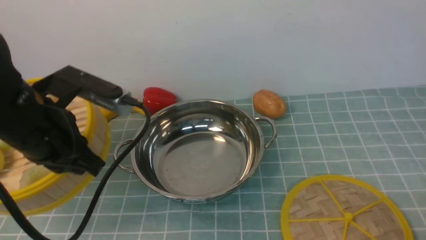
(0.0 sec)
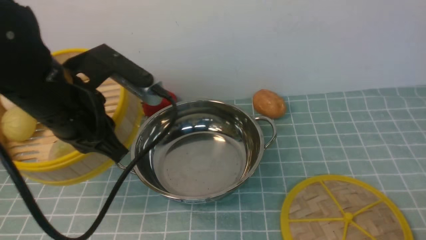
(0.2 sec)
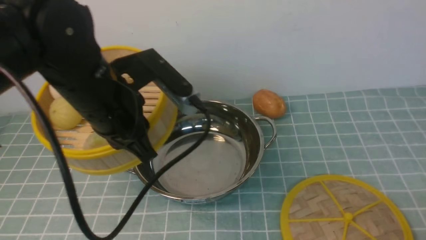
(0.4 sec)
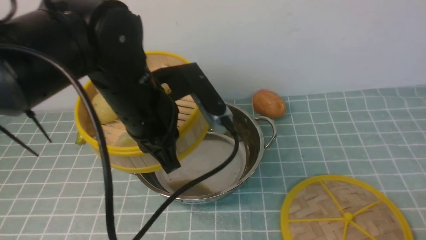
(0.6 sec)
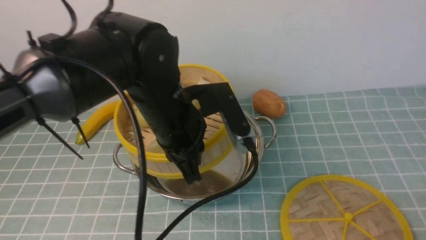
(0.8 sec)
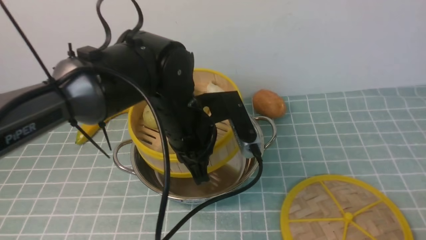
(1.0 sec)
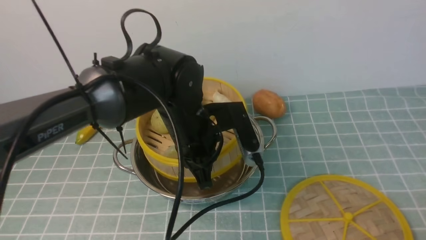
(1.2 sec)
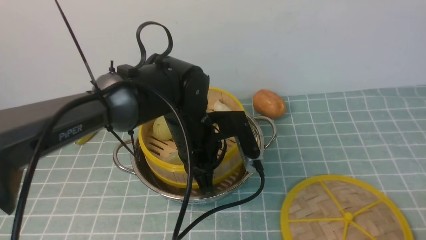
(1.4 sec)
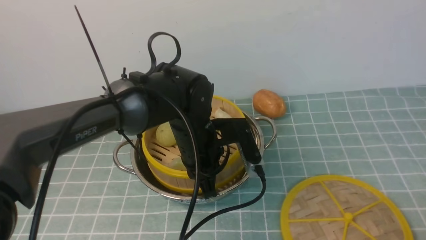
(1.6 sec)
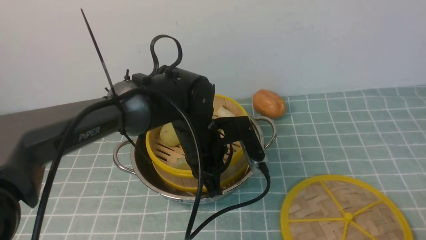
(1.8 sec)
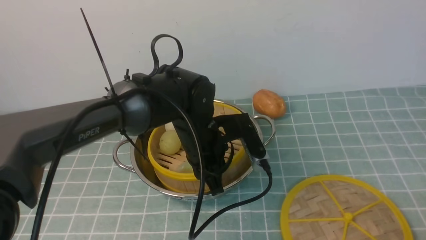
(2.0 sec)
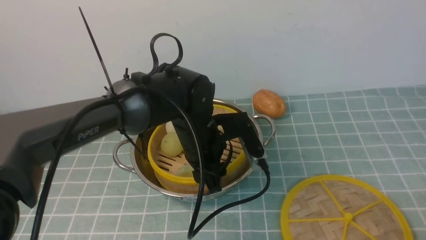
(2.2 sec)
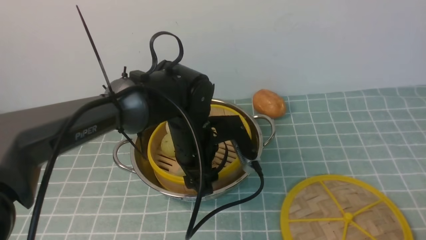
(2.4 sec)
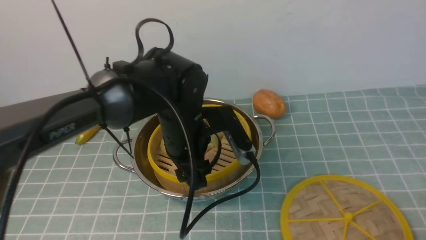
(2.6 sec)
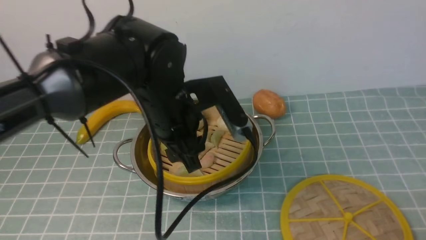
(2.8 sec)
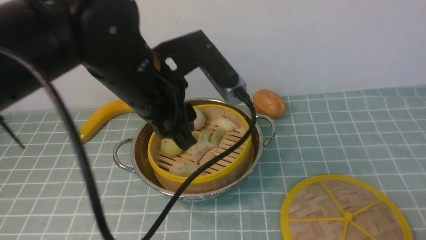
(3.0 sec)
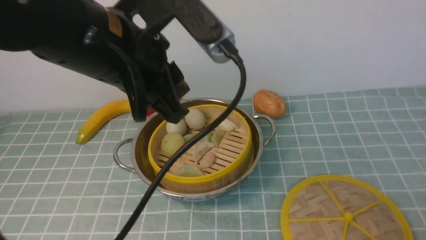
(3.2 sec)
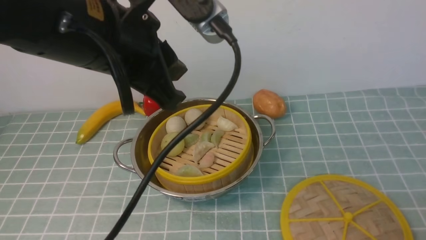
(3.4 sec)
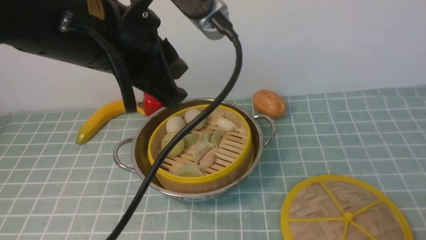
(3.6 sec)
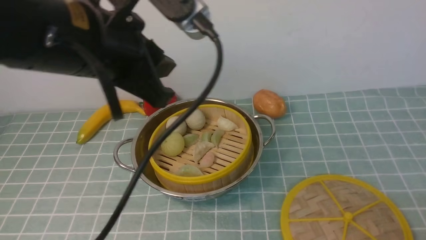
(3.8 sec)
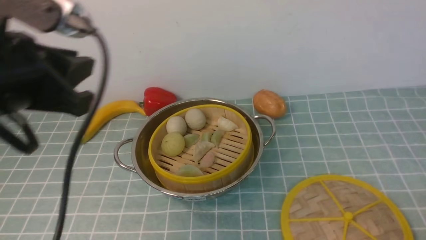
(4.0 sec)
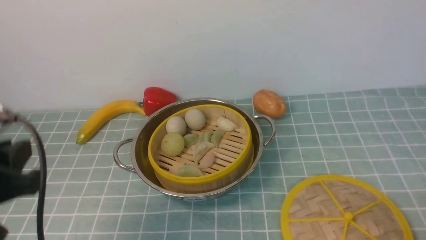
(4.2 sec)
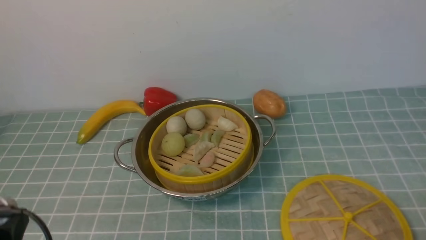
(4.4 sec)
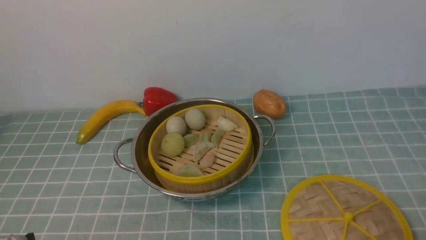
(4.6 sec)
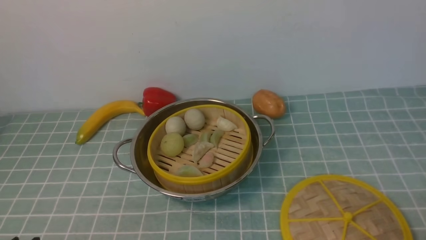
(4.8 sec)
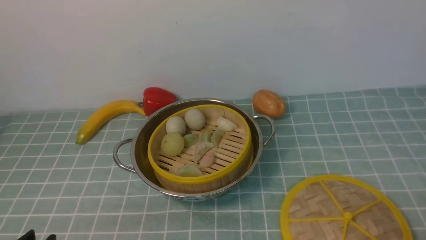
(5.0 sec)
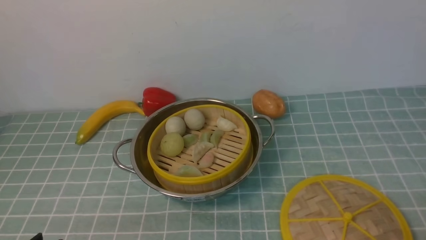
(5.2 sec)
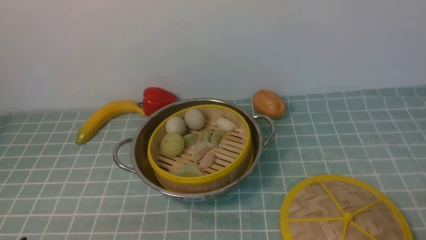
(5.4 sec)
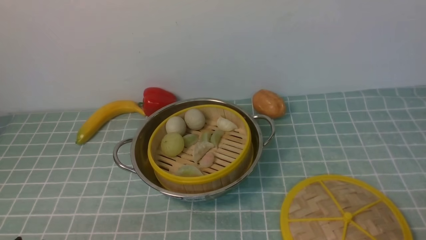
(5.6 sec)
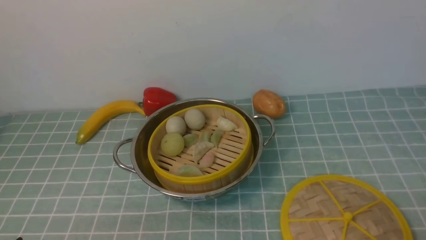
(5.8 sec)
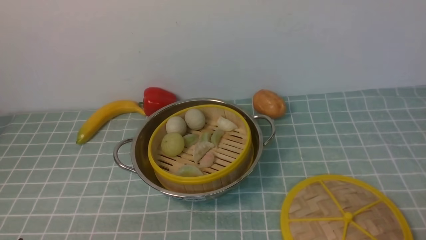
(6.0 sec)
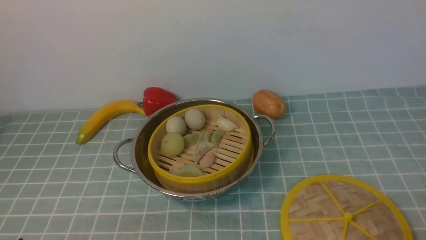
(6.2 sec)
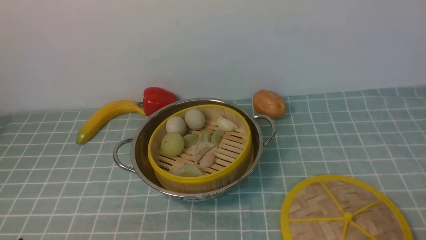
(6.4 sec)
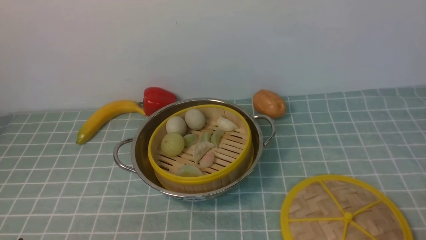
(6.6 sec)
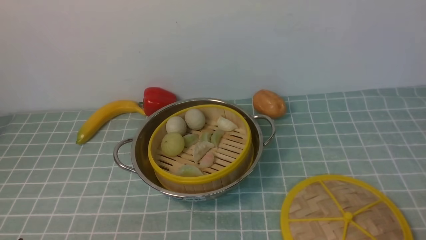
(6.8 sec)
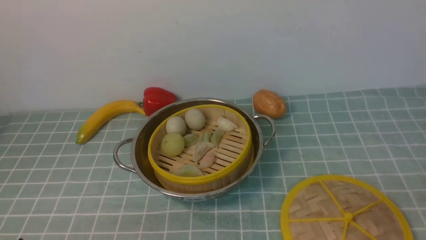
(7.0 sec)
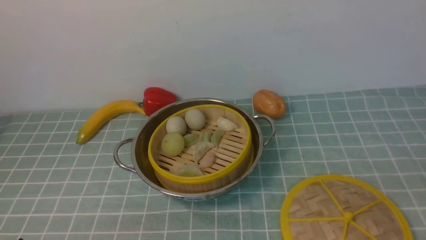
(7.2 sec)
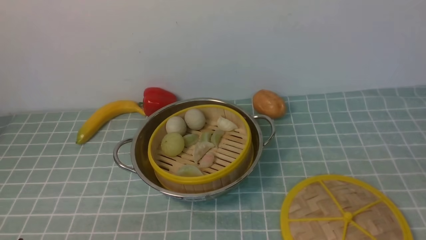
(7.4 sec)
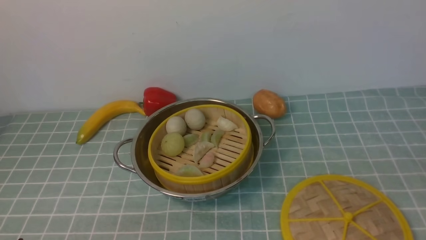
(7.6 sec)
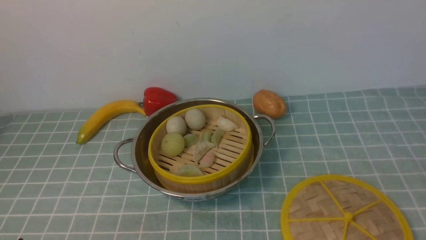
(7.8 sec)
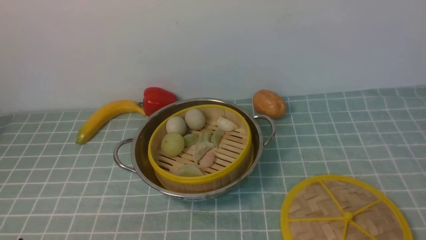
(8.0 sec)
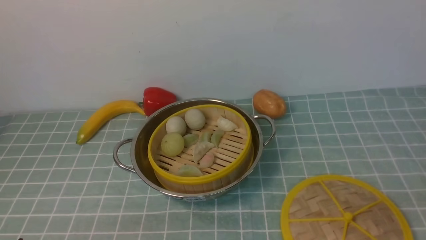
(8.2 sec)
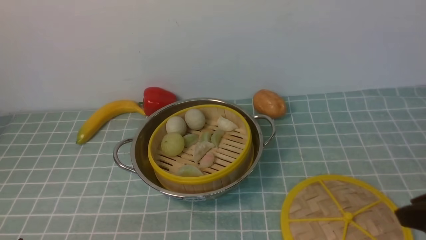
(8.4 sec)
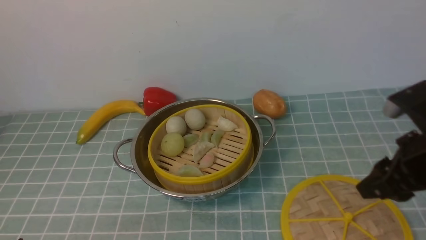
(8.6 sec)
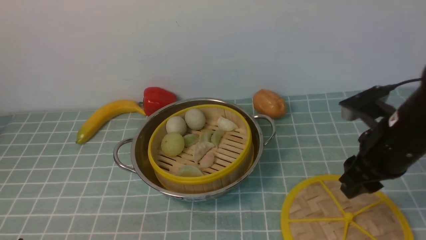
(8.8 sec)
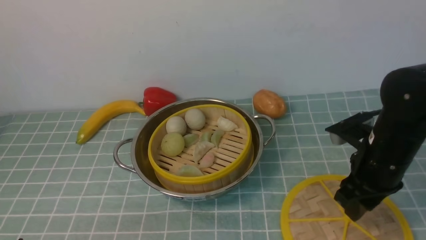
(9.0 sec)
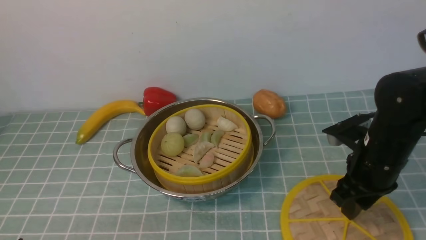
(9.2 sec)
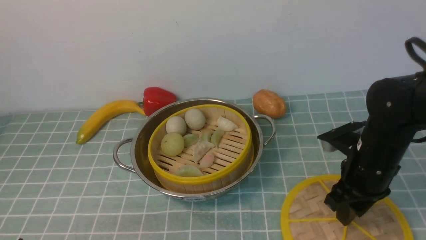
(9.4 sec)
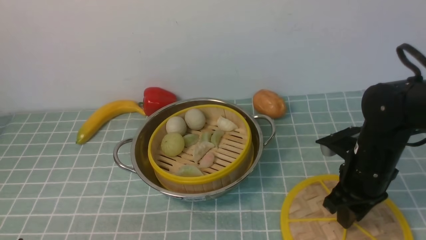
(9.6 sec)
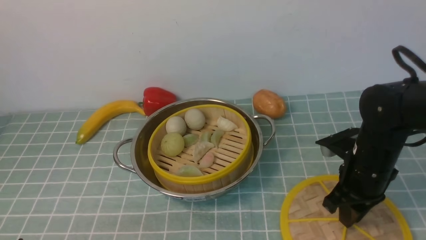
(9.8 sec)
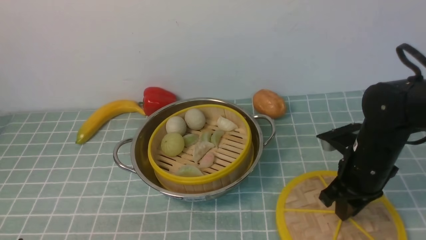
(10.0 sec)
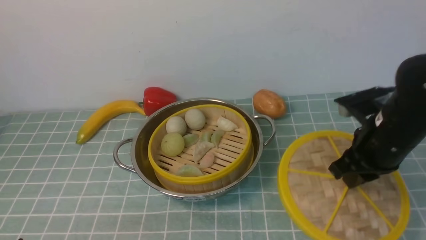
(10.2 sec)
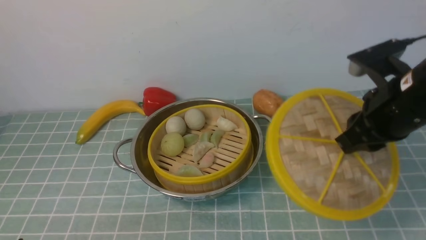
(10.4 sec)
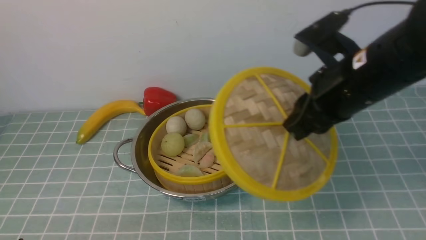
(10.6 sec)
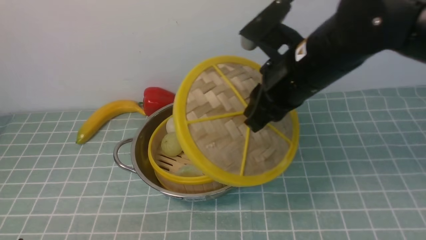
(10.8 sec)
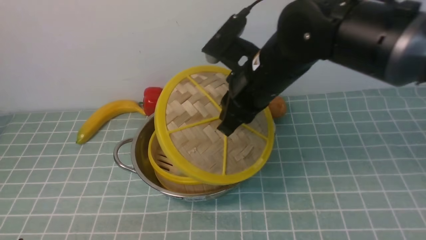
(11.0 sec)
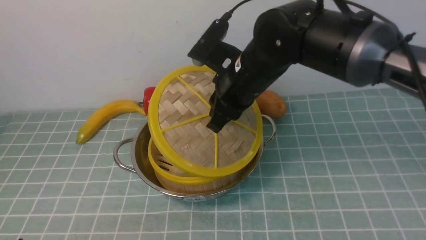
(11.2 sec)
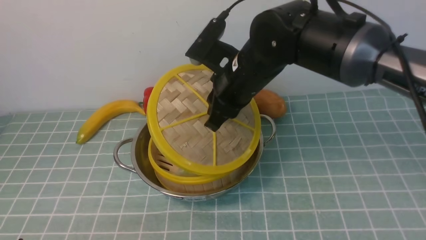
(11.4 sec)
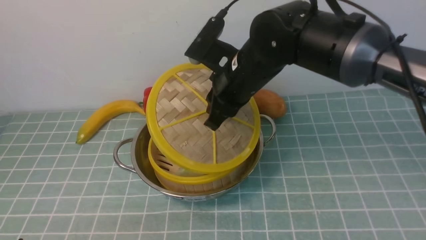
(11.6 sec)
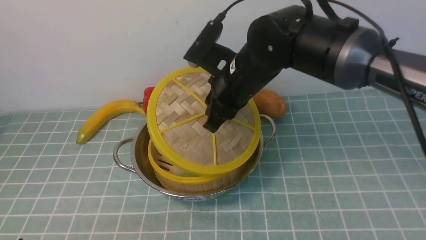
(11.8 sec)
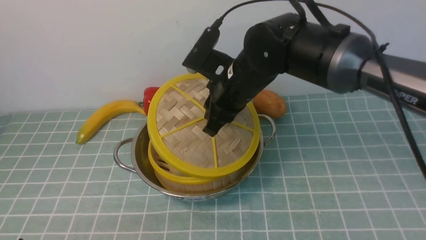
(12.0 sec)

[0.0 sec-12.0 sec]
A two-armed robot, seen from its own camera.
Task of the whole recording: place the steamer in the pot on the blue tablecloth, and put the lid on the steamer.
Step, 0.0 sec to 3.0 sec: use the left arm to put the steamer into the iron steamer pot in the middle.
Step, 3.2 sec to 10.4 sec: use the right arm to lift the lid of the steamer.
0.0 sec to 1.6 sec: The left gripper travels to the right, downward and forward by about 20 cm.
1.6 sec to 3.0 sec: The left gripper shifts some 15 cm upward, and opens.
3.0 sec to 4.4 sec: The left gripper shifts approximately 30 cm backward, to the left and downward.
4.4 sec to 6.0 sec: The left gripper shifts about 5 cm downward.
7.6 sec to 9.0 sec: The right gripper moves forward and downward, some 30 cm.
9.0 sec to 10.4 sec: The right gripper goes approximately 10 cm upward, and closes up.
10.4 sec to 12.0 sec: The right gripper goes about 20 cm to the left and forward.

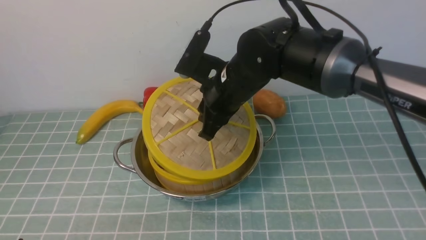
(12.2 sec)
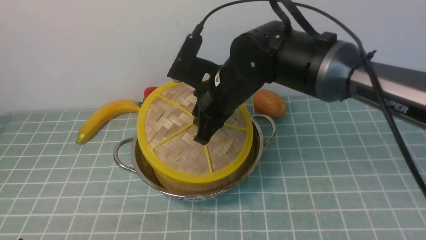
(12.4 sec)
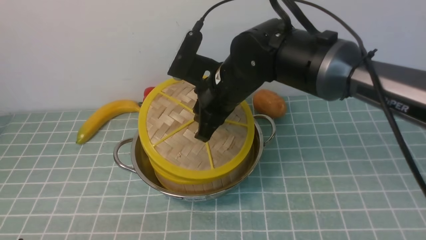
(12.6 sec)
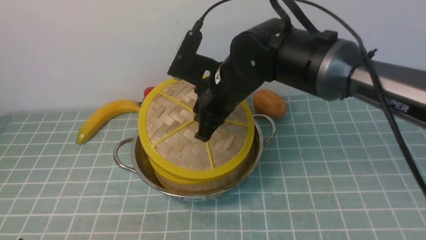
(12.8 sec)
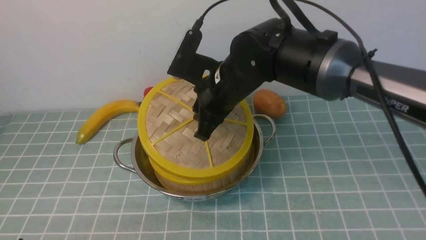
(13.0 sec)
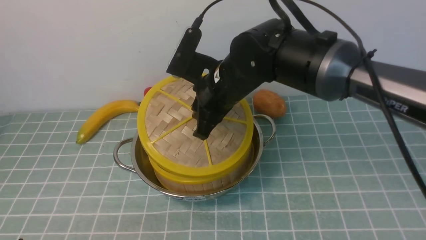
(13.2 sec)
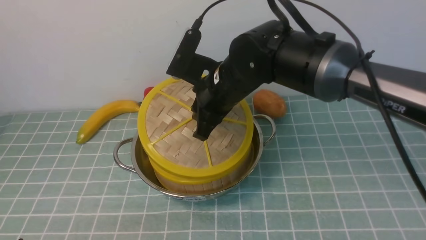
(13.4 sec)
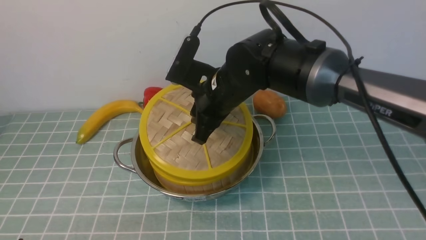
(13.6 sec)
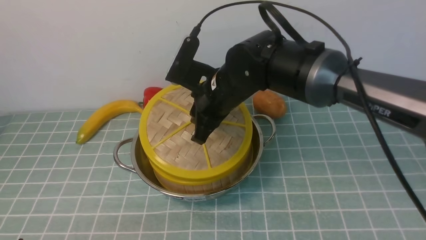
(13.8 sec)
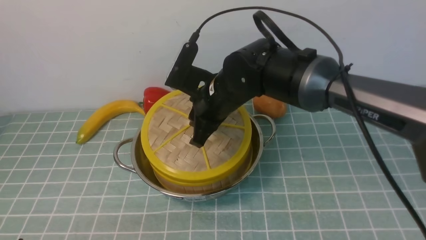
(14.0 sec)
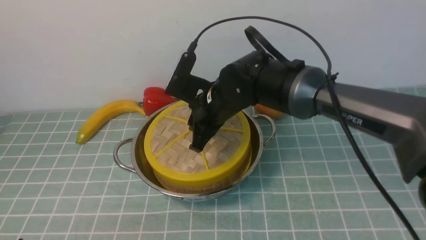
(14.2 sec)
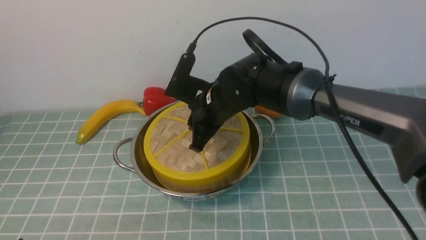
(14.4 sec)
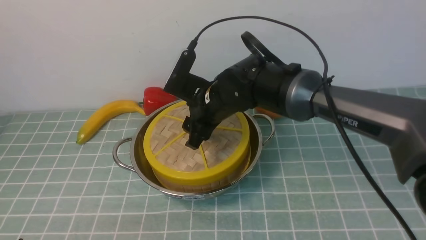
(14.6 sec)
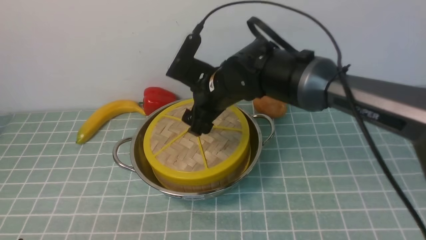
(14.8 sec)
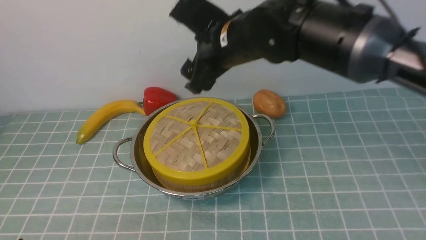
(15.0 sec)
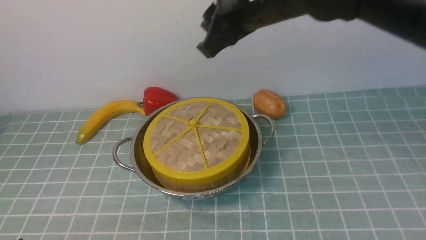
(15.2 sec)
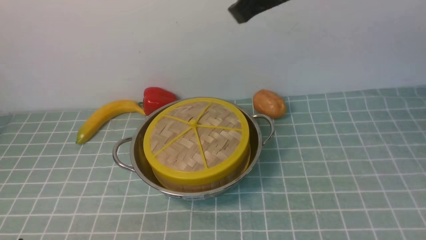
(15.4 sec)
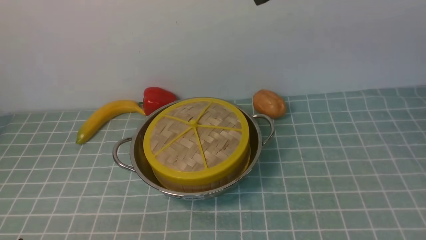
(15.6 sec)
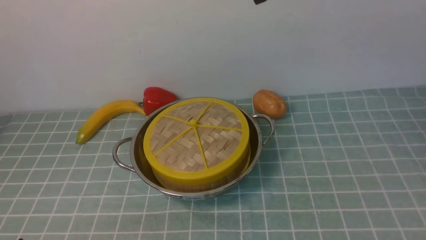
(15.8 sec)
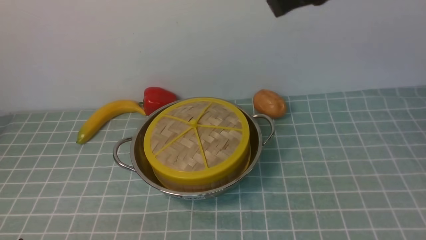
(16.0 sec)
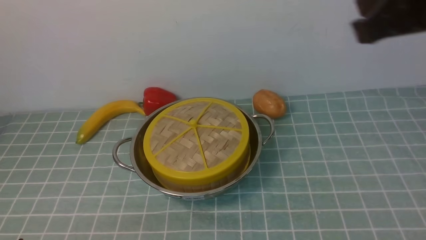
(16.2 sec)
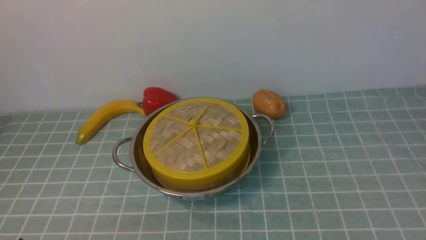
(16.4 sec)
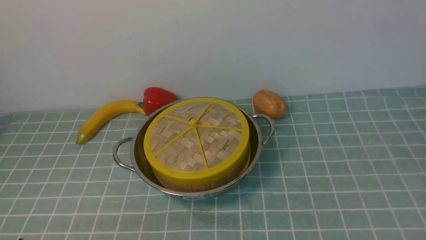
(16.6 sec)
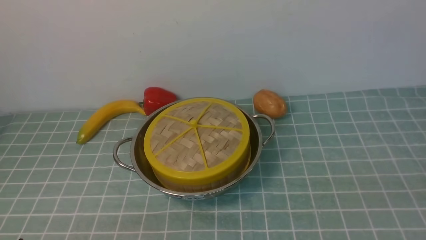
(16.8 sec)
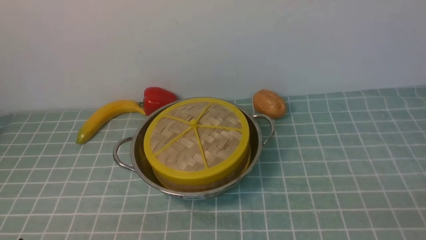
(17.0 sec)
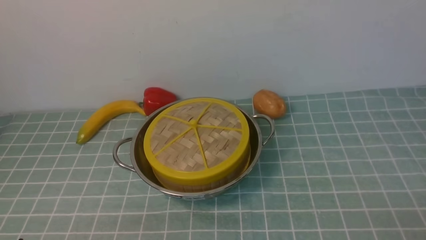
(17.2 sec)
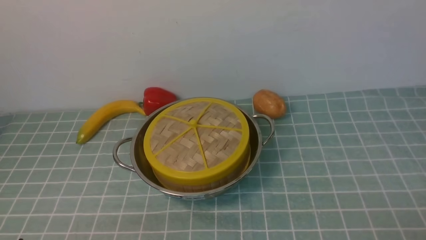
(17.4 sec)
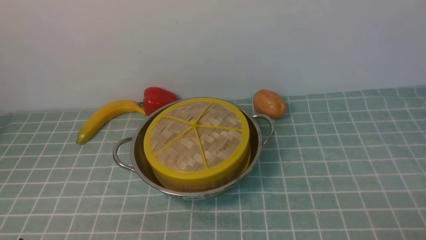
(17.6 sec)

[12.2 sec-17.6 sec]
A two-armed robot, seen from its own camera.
Task of the whole recording: place the steamer in the pot on the blue tablecloth, and put the lid on the steamer.
Step, 12.2 sec to 15.2 sec: use the right arm to place the steamer lid on the steamer.
12.2 sec to 13.6 sec: The grippers move only a little.
13.6 sec to 15.0 sec: The right gripper heads upward, covering approximately 10 cm, and opens up.
15.0 sec to 16.2 sec: The right gripper is displaced to the right, backward and upward by roughly 30 cm, and closes.
16.2 sec to 17.6 sec: The right gripper goes some 30 cm downward and backward, and opens.
